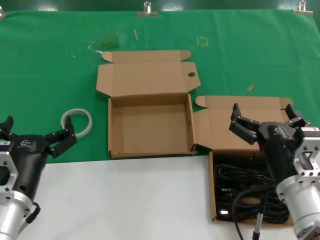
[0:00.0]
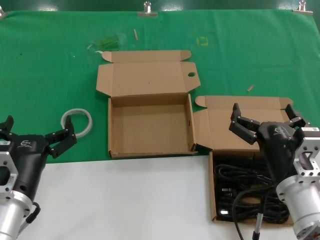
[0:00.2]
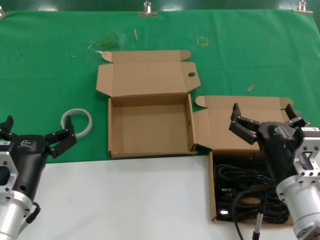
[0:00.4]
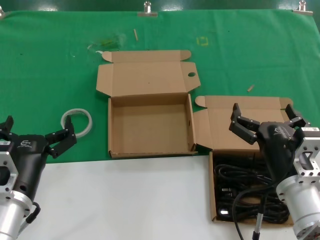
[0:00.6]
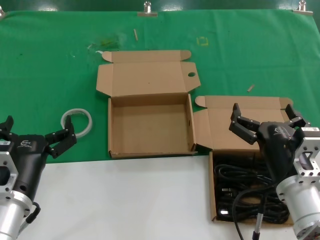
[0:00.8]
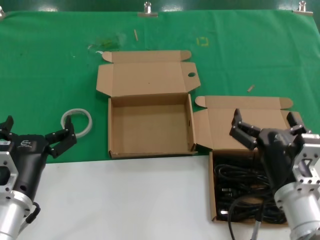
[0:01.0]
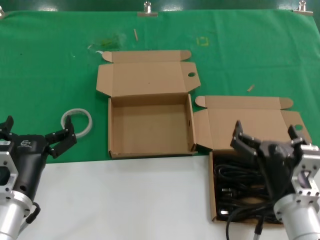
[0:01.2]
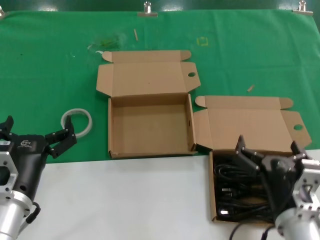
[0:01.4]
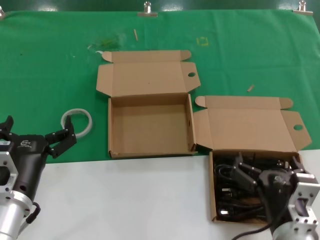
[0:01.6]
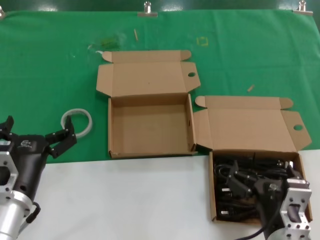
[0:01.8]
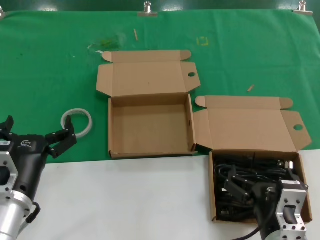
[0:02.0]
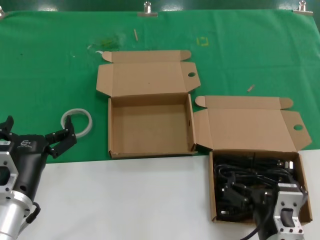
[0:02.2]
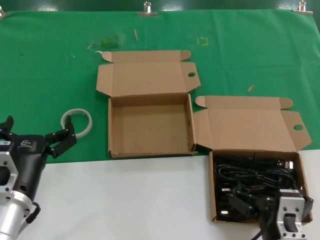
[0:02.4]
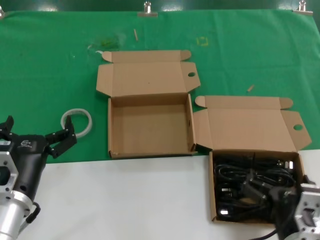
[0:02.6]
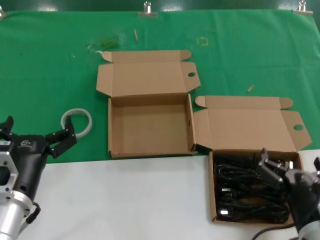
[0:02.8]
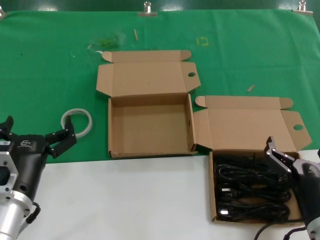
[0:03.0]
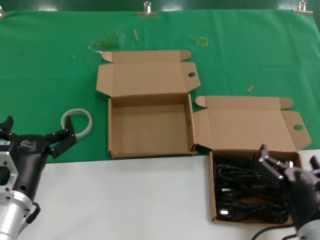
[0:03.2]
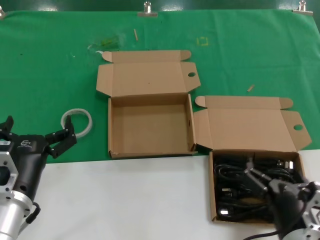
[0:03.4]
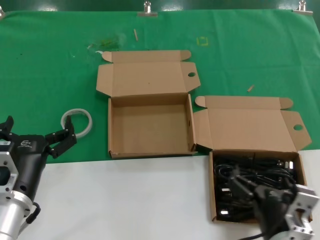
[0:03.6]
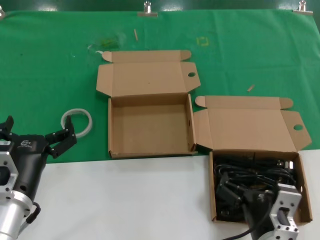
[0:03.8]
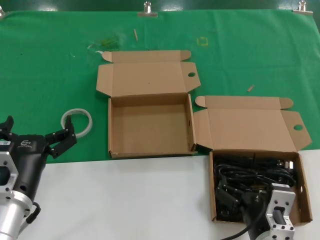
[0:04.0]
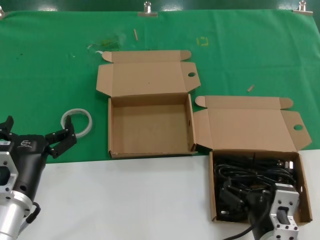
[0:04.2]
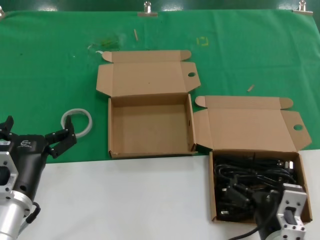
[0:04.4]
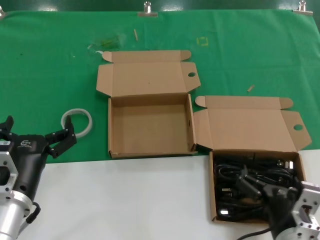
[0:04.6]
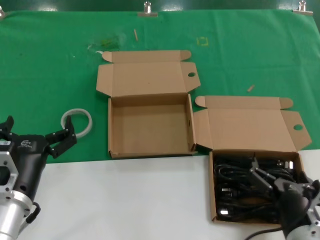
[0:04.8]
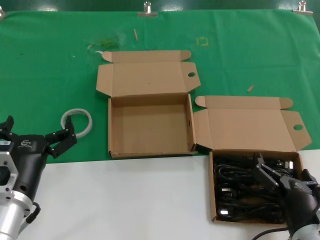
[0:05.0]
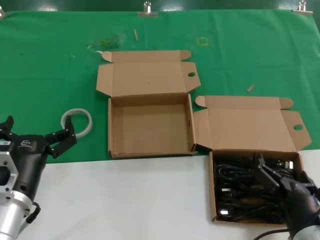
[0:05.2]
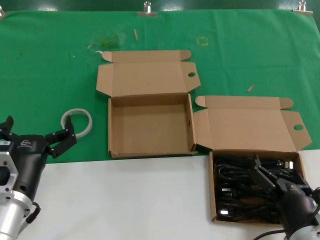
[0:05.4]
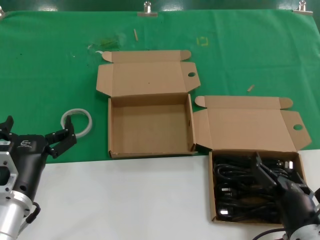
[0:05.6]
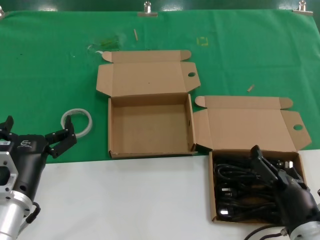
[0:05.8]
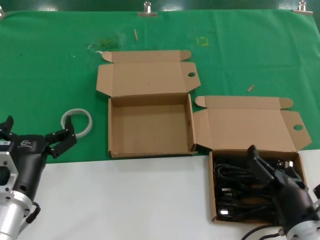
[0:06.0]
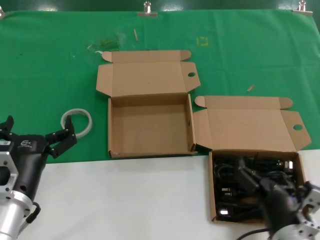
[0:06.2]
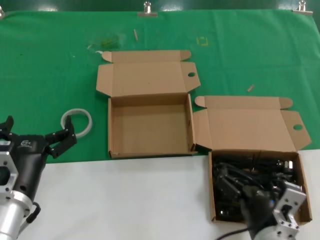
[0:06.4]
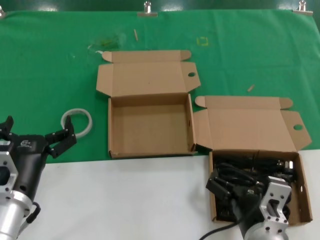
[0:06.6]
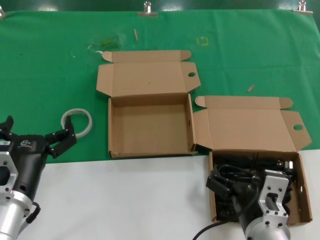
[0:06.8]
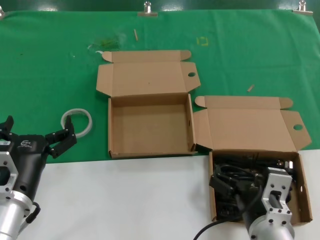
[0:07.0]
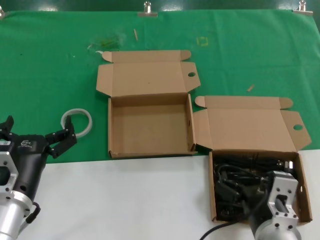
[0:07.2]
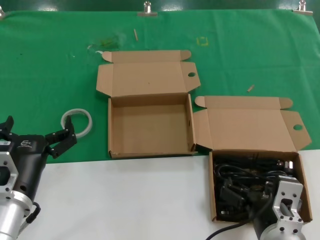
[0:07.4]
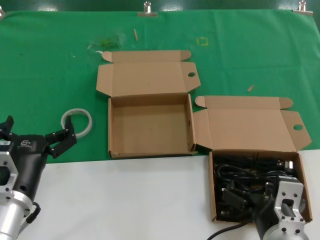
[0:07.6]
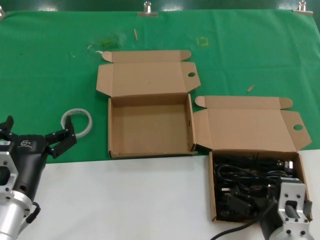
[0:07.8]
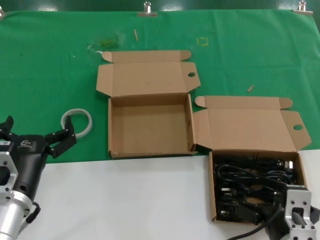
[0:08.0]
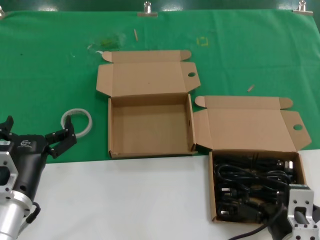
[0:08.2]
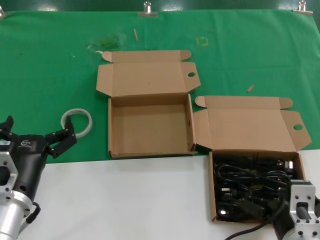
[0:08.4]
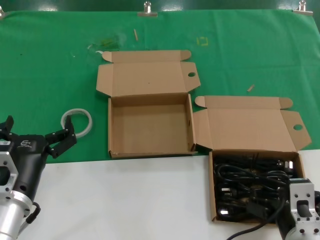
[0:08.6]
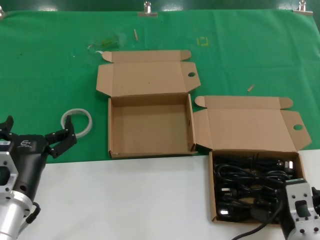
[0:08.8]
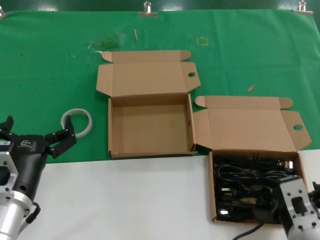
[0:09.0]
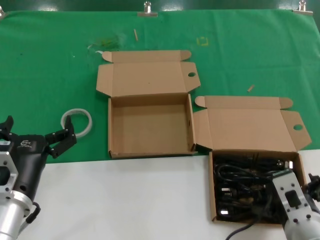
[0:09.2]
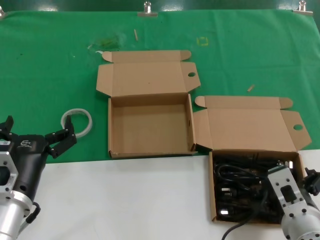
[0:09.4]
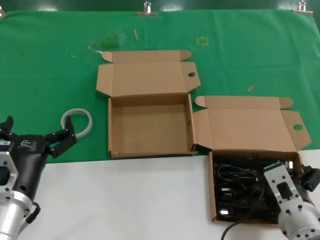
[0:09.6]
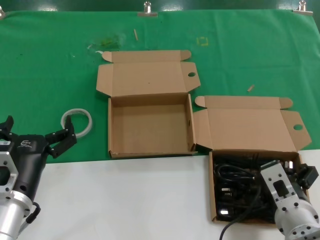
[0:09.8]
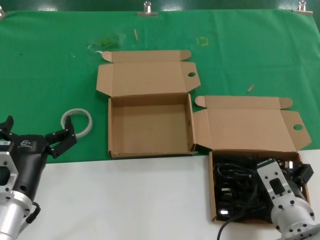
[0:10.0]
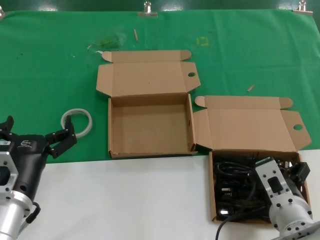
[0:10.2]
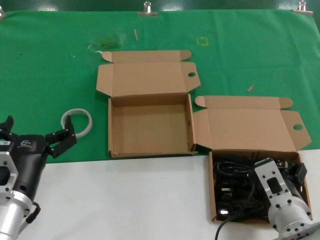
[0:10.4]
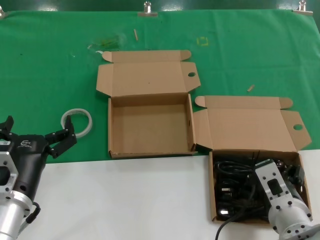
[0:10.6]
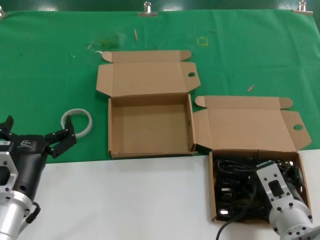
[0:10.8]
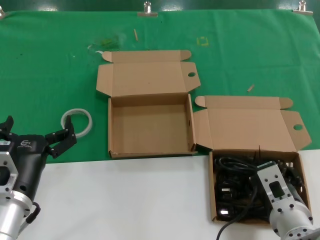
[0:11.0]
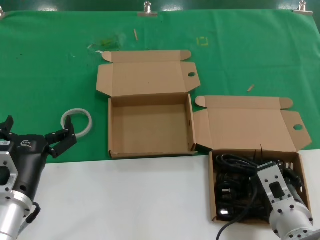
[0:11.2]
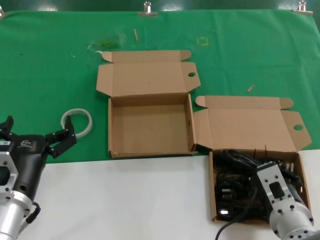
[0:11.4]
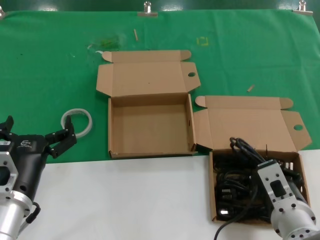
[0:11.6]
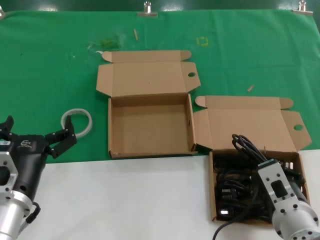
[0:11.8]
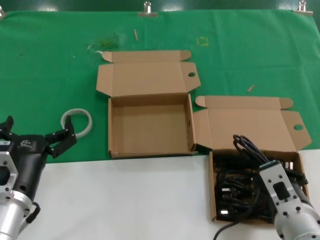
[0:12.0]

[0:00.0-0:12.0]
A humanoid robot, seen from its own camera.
Task of the whole recording: take the parts from the box containing them and put them into an empty box.
Step, 0:00.0 to 0:11.0: Grasp the data cable.
0:00.0 to 0:01.6: The right hand travels backward by about 5 cm.
0:01.6 to 0:03.0: The right hand travels to the right by about 5 cm.
0:03.0 to 0:04.4: The right hand shifts approximately 5 cm to the left.
0:04.4 to 0:06.0: The right hand shifts approximately 5 cm to the right.
0:06.0 to 0:07.6: The right hand heads to the left and upward, covering approximately 10 cm.
0:09.0 to 0:10.4: The right hand moves forward, some 5 cm.
0:10.4 to 0:12.0: The right hand moves roughly 5 cm.

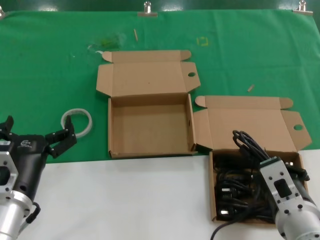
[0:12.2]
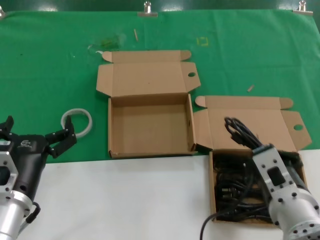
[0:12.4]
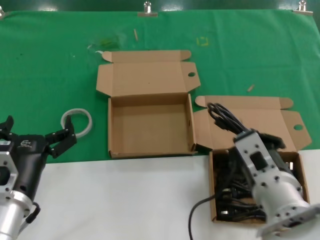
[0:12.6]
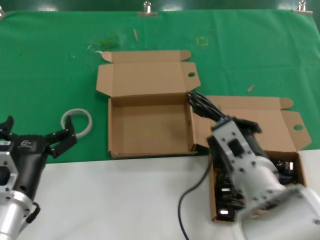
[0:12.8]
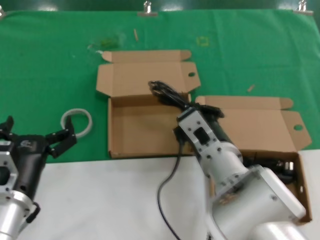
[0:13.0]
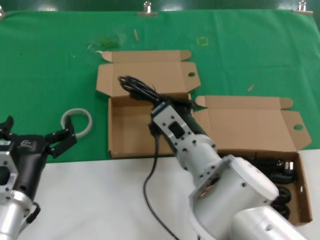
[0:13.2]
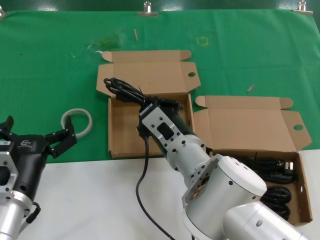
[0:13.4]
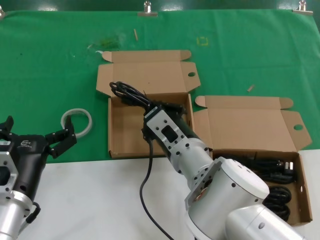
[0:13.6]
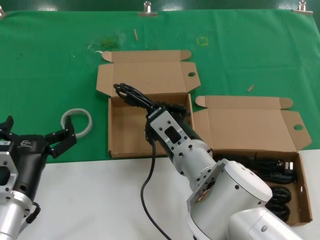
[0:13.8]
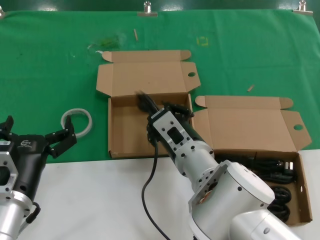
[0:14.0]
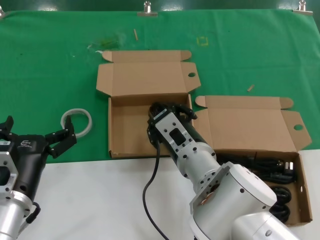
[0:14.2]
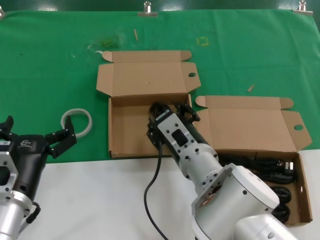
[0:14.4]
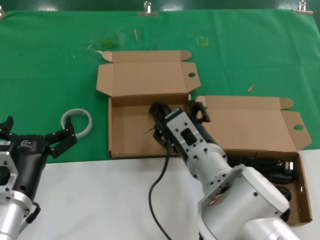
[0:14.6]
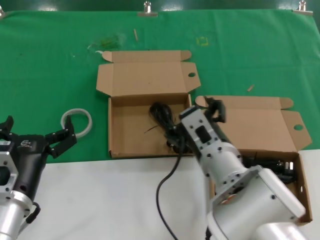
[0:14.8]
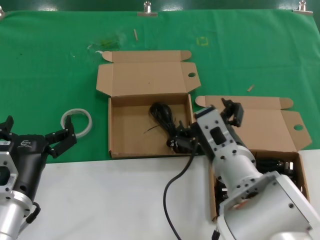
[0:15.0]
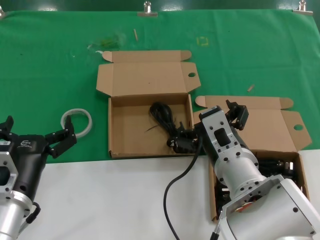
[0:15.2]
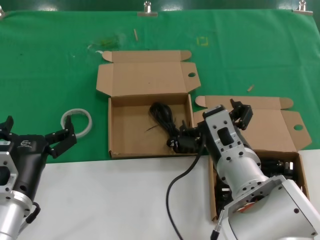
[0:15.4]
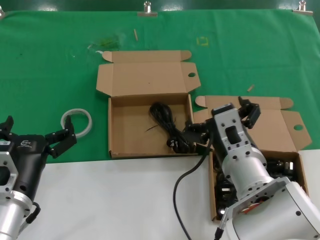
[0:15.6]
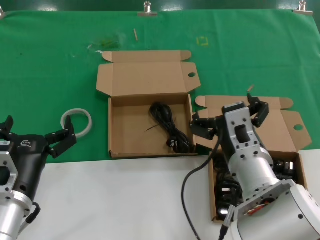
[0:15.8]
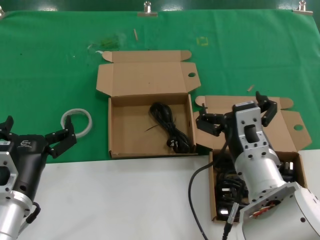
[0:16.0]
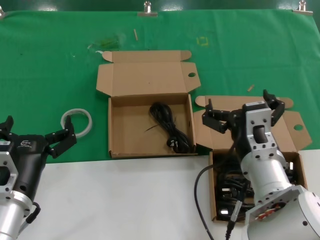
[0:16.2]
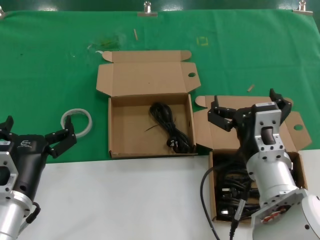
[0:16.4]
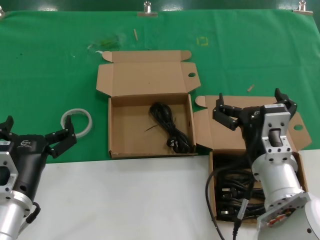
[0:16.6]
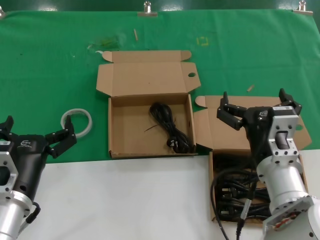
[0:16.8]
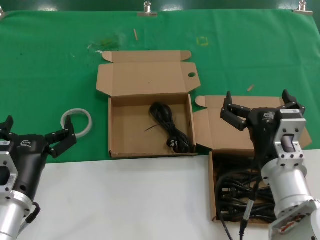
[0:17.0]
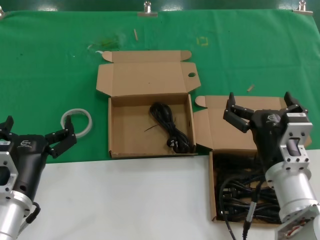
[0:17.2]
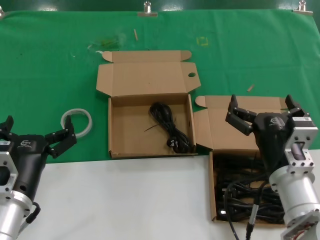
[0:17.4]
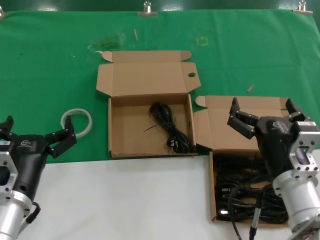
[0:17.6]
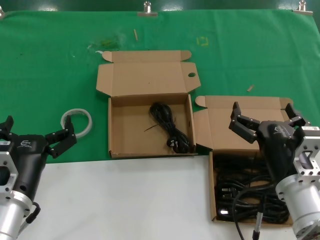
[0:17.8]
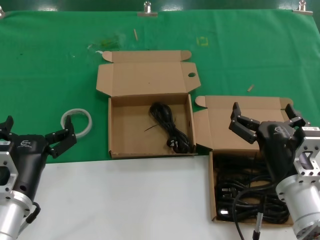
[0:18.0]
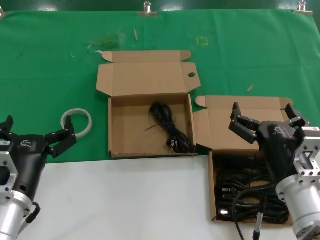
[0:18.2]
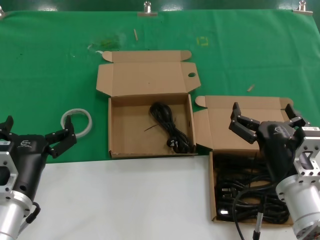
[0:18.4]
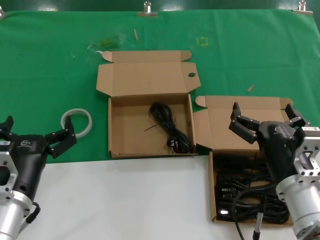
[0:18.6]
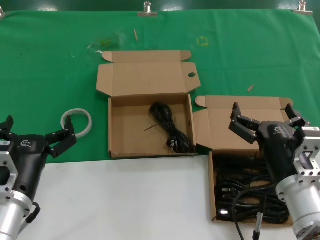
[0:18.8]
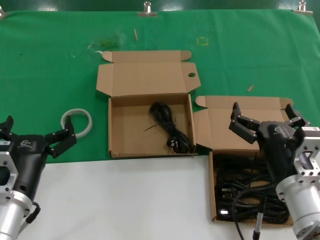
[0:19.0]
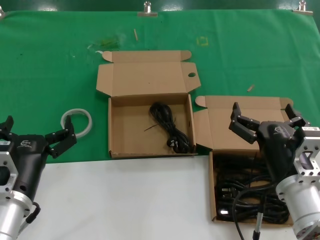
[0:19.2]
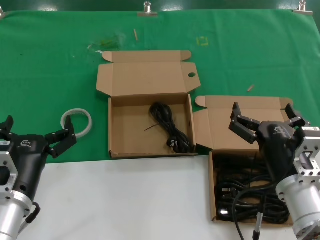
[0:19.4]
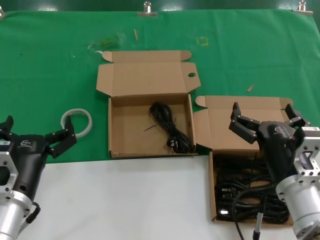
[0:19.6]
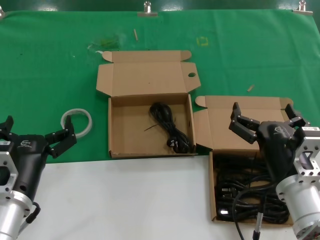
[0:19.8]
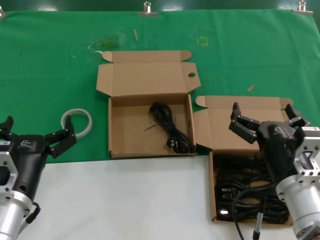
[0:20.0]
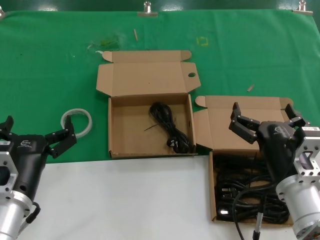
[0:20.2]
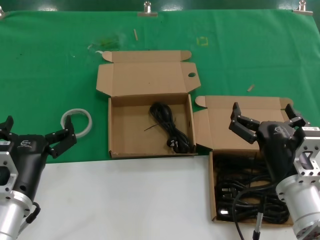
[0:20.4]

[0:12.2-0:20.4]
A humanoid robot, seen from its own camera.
Task of the whole recording: take the parts from the box containing them and put them into an empty box.
Step, 0:12.2 to 0:14.0: Place the data cable in the another box.
0:12.2 to 0:13.8: The right hand heads to the left and forward, covering roughly 20 cm.
0:13.8 to 0:15.4: The right hand is displaced to the right by approximately 5 cm.
0:15.4 to 0:17.2: The right hand shifts about 10 cm to the right.
0:17.2 to 0:18.8: The hands move only a little.
0:18.8 to 0:20.4: Both hands stay put.
